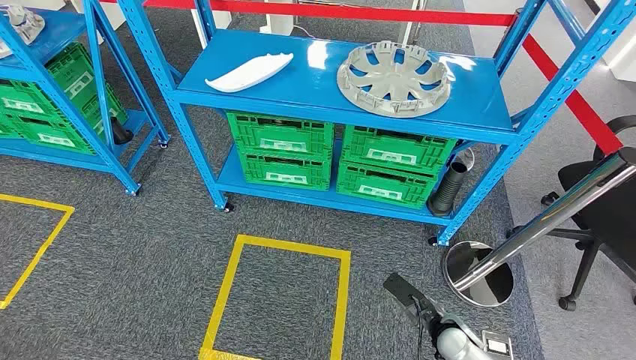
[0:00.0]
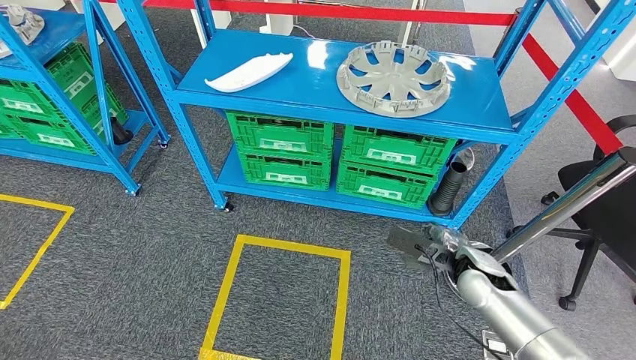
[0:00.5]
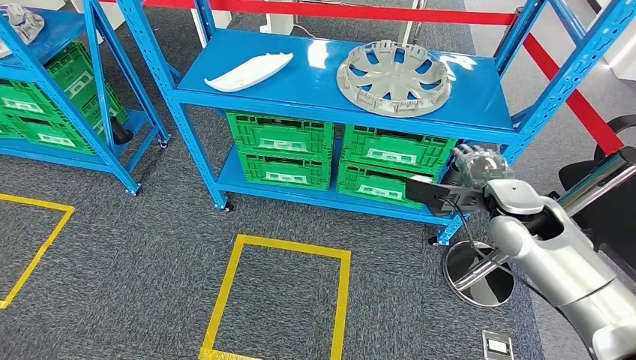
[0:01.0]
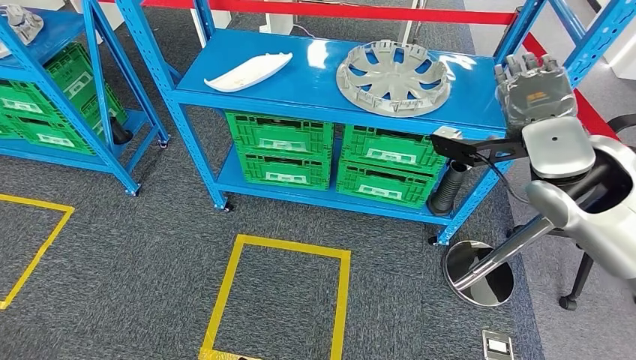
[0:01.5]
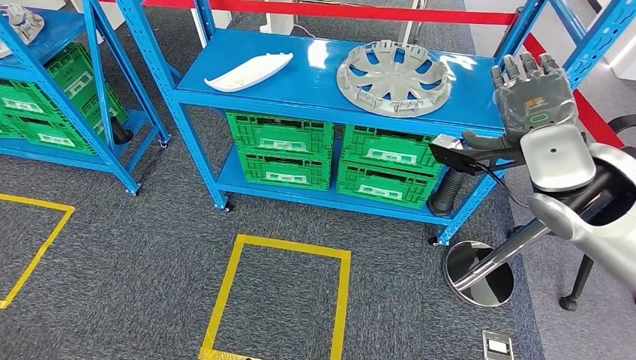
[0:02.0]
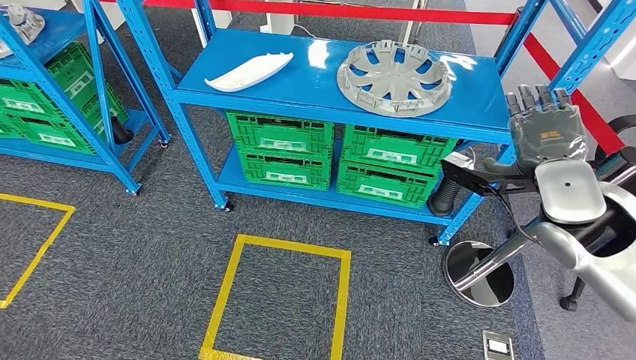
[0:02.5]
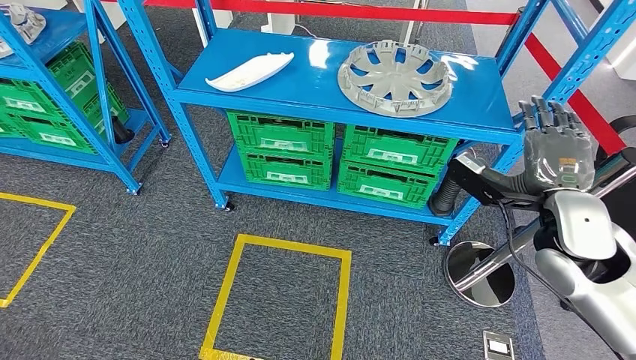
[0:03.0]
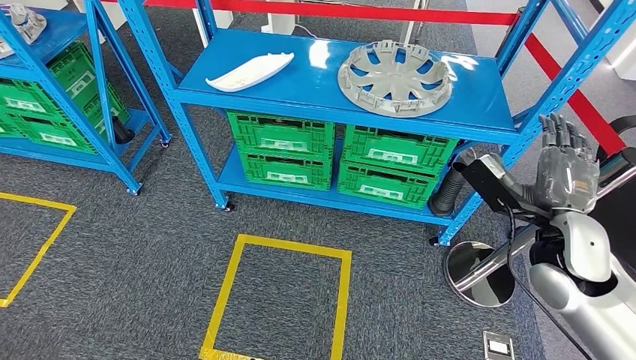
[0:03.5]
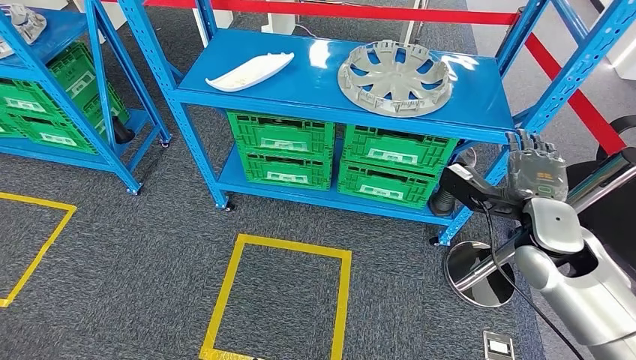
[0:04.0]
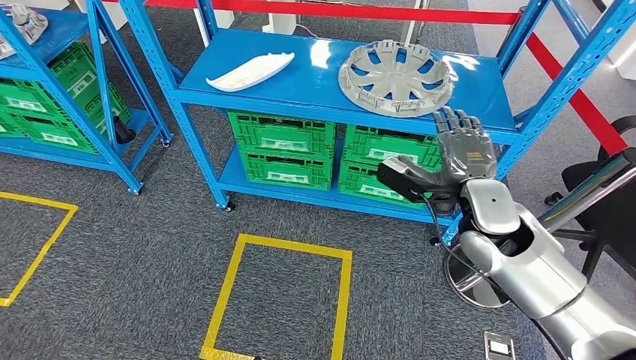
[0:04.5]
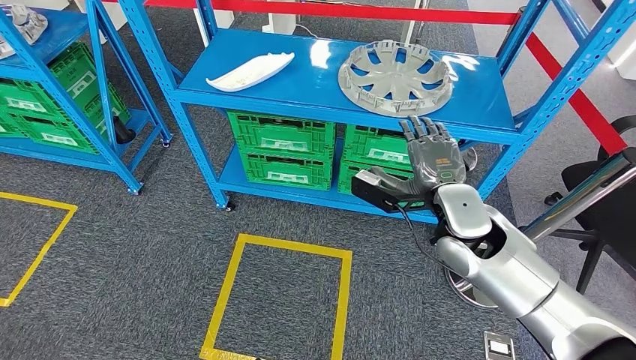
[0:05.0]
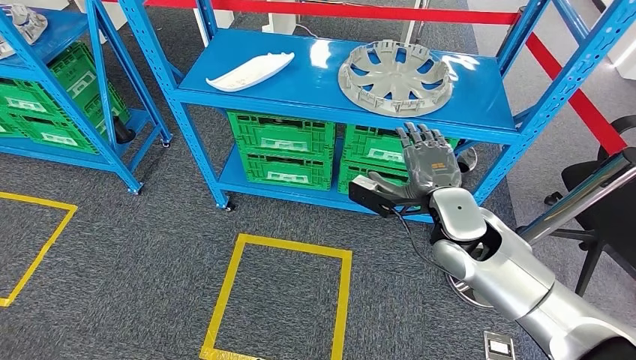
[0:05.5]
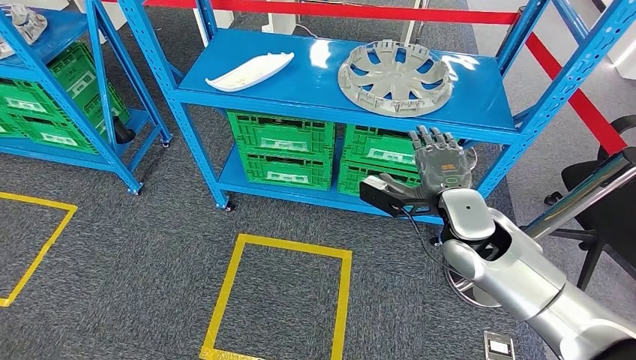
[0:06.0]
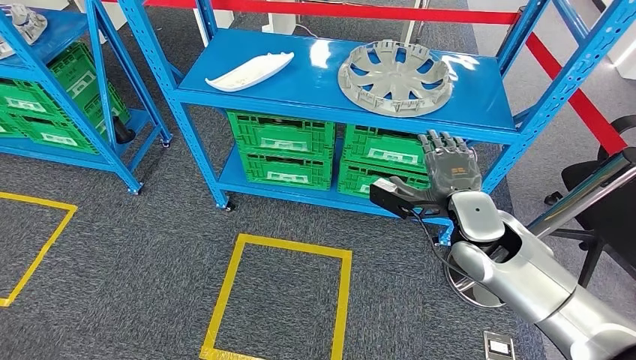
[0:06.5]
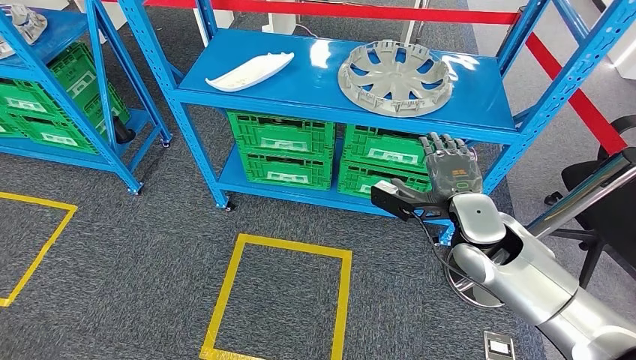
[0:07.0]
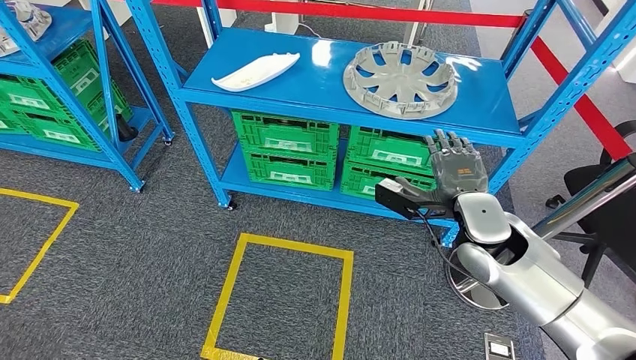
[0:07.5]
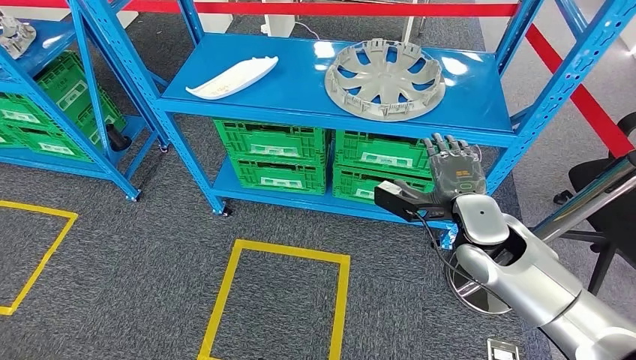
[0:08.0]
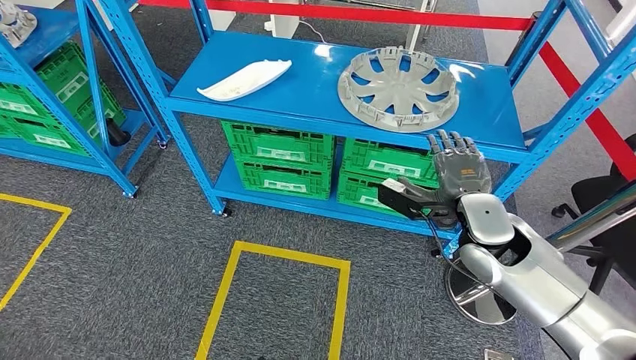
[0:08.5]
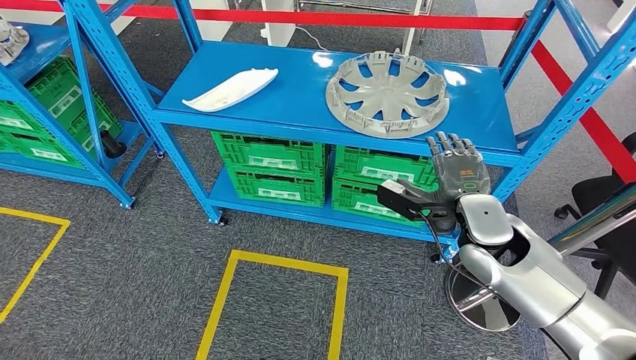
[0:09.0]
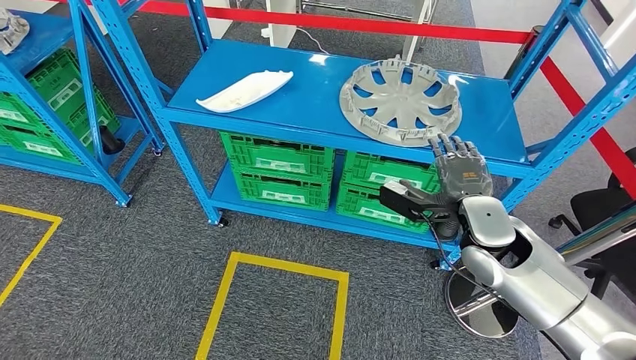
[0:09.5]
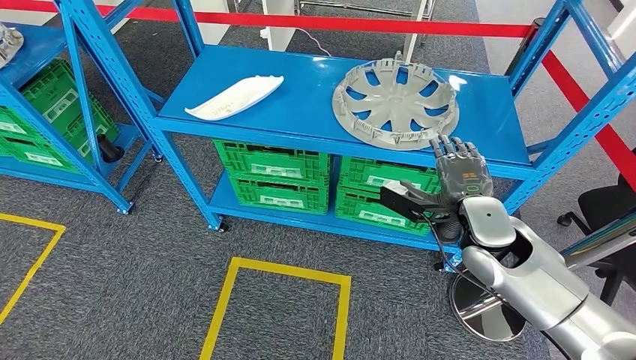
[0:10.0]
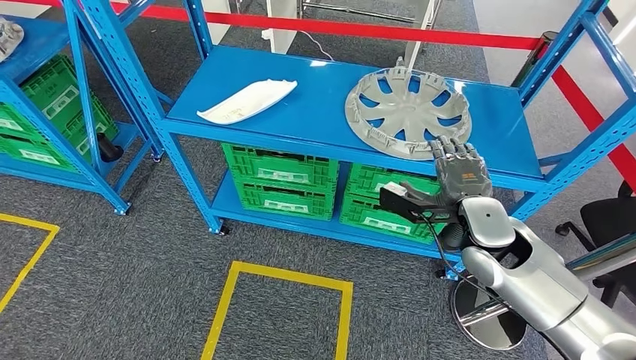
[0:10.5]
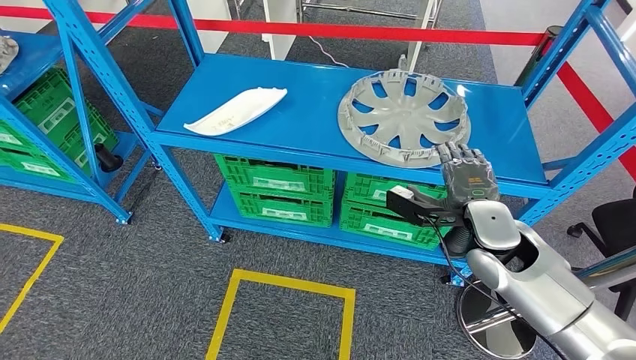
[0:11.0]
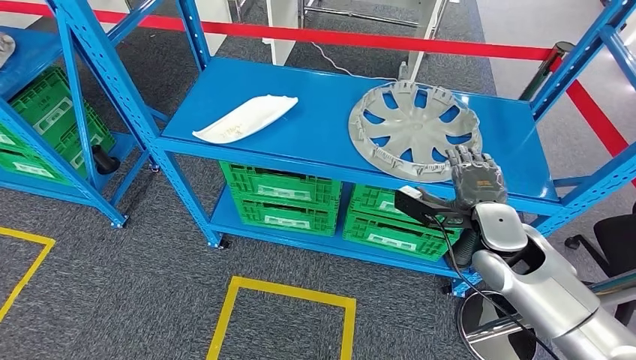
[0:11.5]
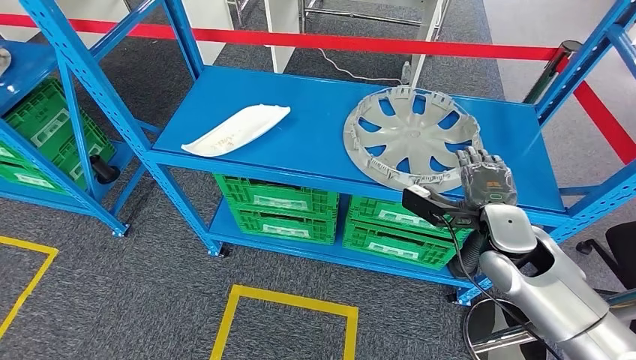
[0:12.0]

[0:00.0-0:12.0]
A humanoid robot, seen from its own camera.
0:02.0 to 0:04.0: The right hand heads downward, covering approximately 15 cm.
0:04.0 to 0:06.0: The right hand moves to the left, some 10 cm.

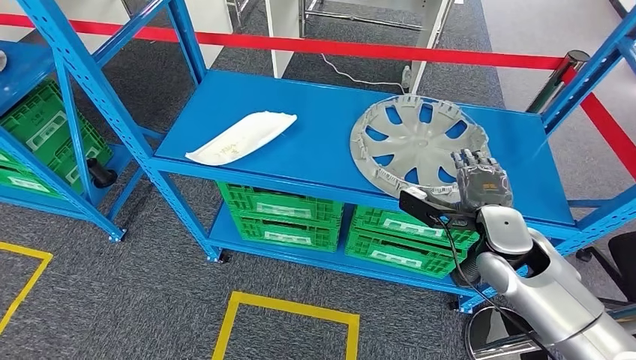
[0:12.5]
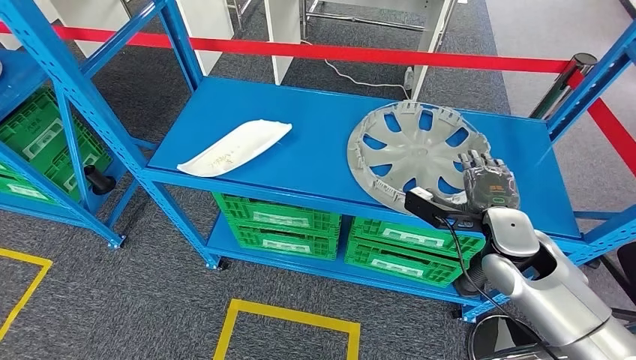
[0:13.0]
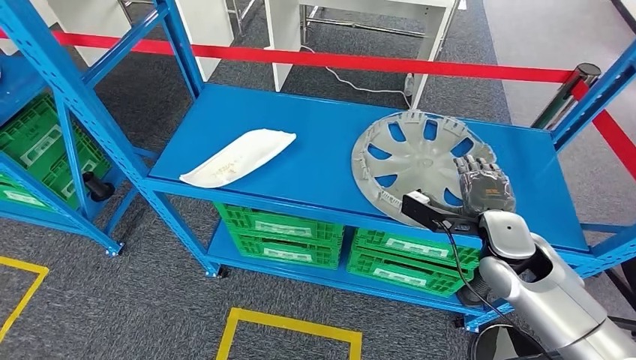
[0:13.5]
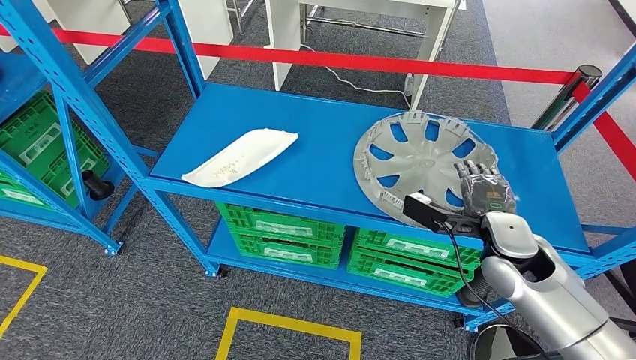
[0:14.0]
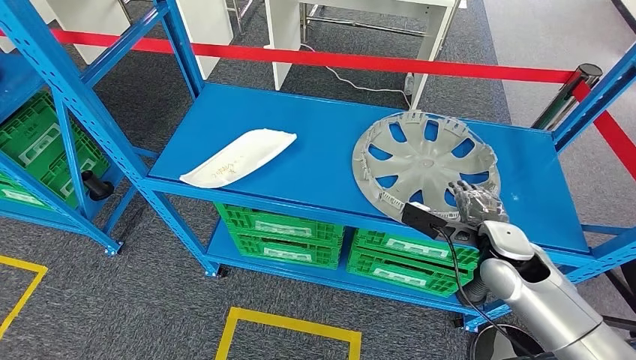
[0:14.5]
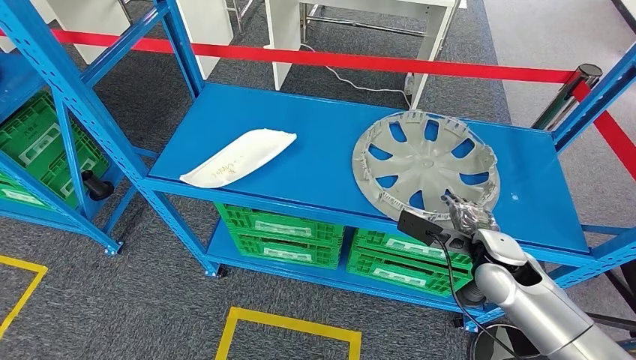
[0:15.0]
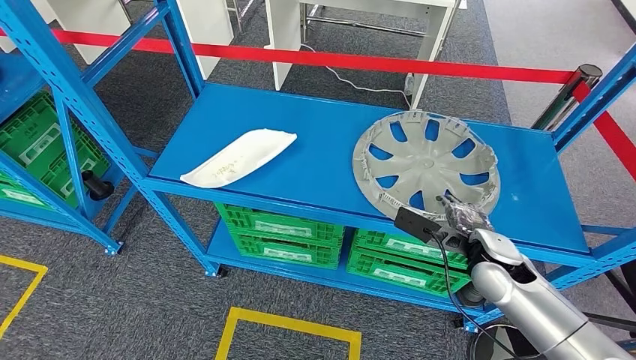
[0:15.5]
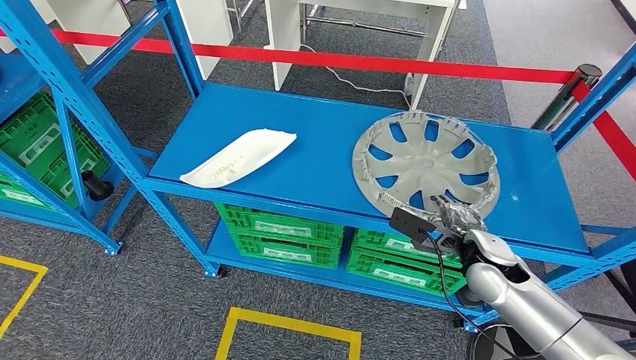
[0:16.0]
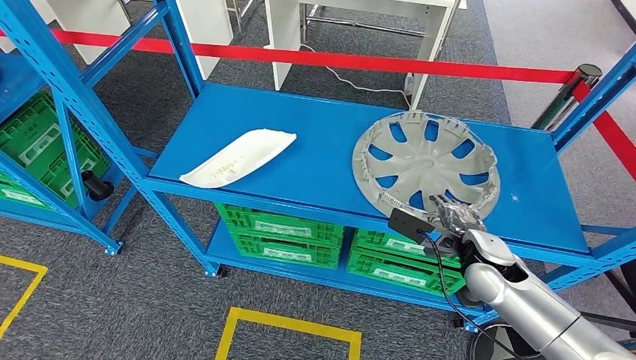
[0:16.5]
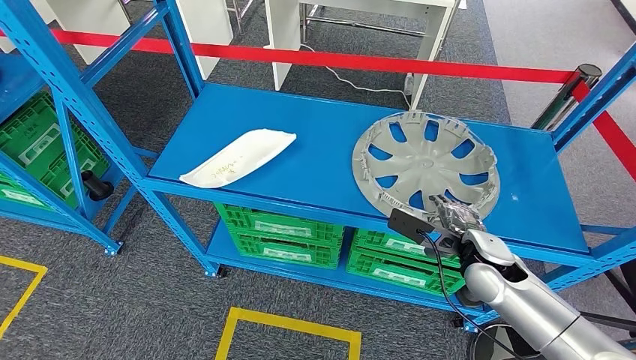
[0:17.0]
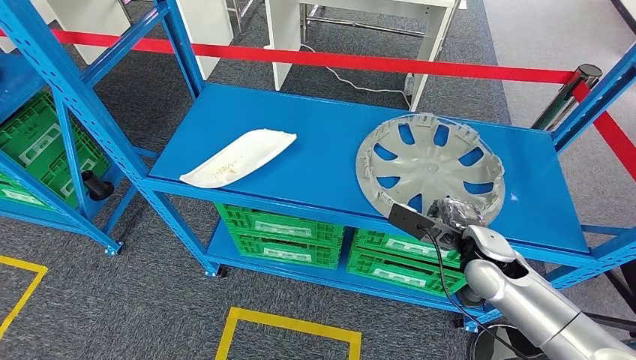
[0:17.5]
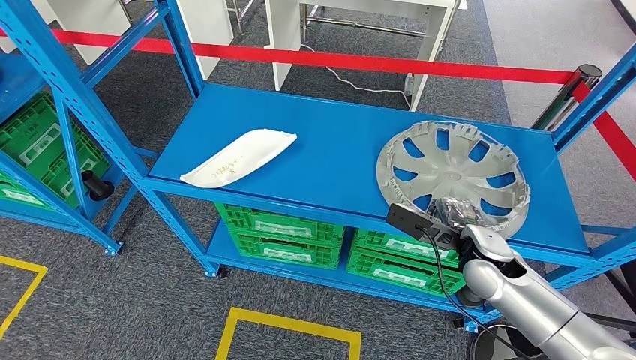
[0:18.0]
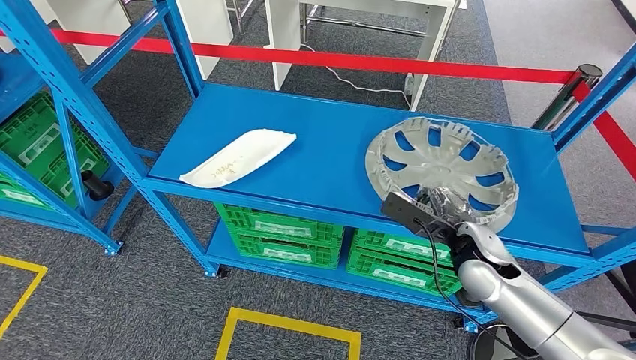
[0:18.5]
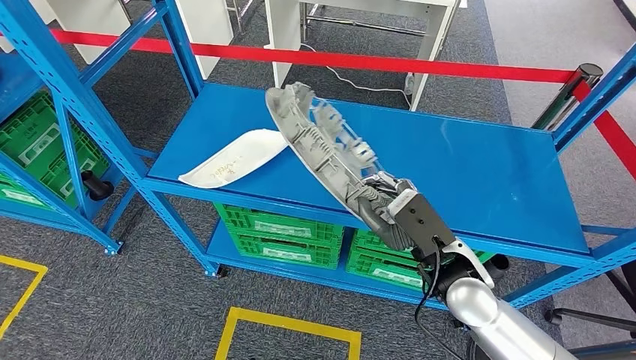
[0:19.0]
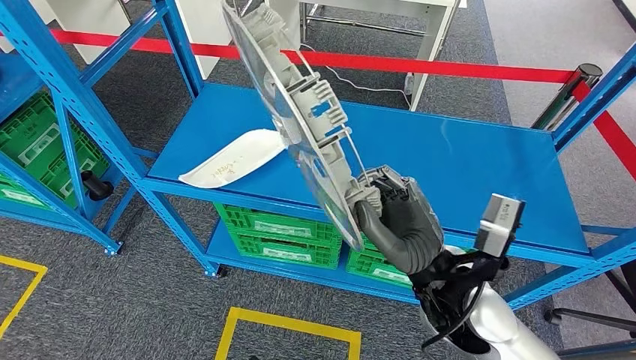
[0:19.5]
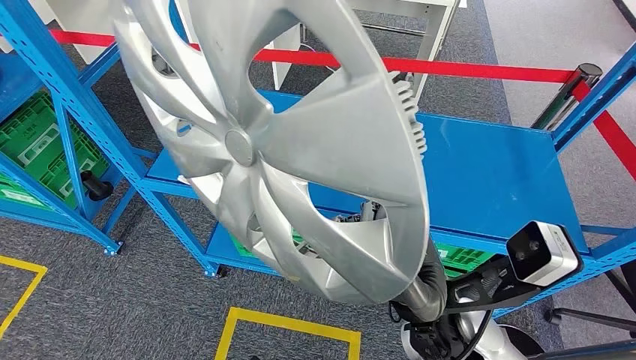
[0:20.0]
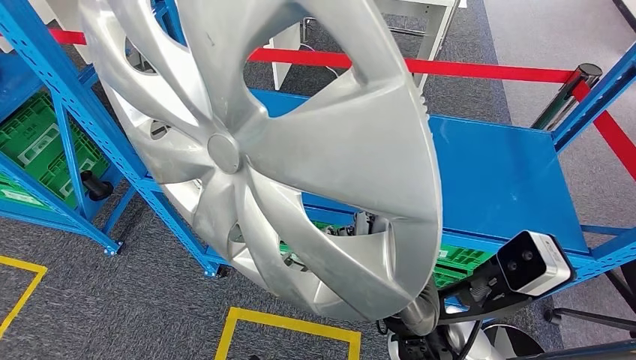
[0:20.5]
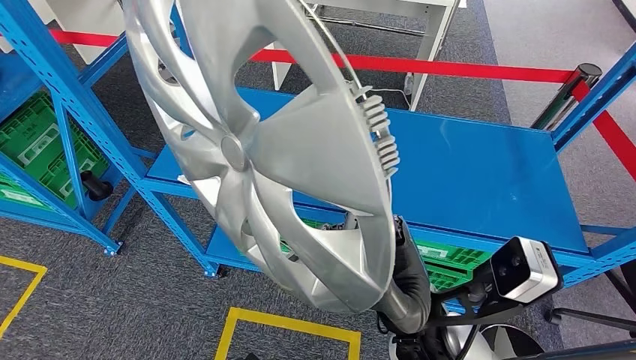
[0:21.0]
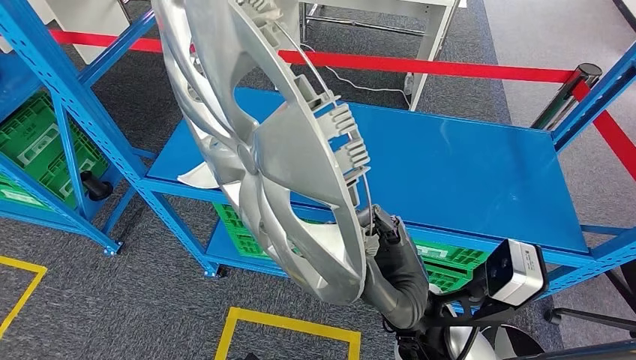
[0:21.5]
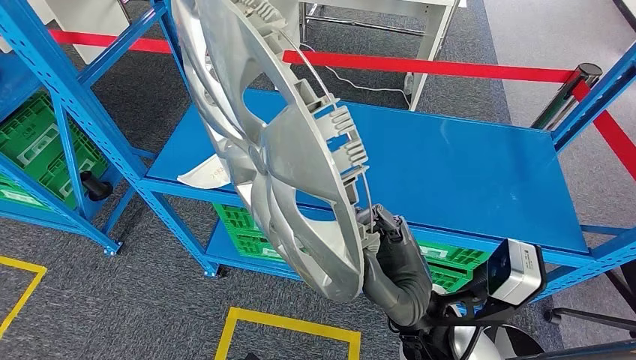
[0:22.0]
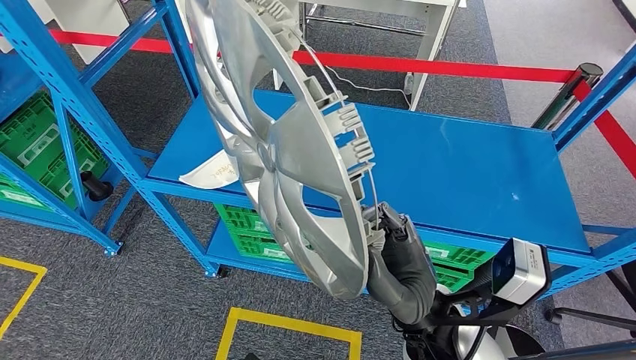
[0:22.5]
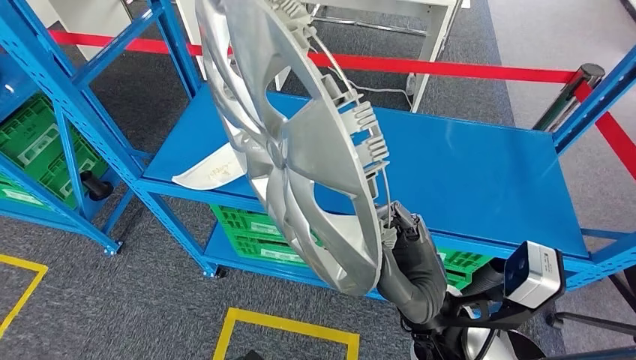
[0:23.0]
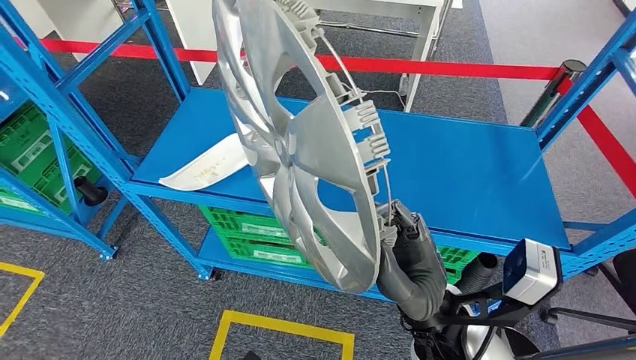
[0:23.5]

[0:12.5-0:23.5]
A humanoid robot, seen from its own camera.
Step, 0:12.5 to 0:19.5: Pick up the large material from the shelf.
0:14.5 to 0:16.0: The hands move only a little.
0:16.0 to 0:18.0: Both hands stay about where they are.
